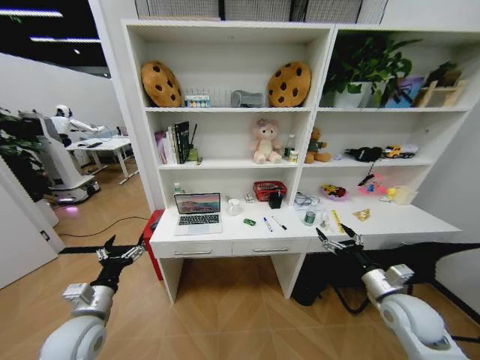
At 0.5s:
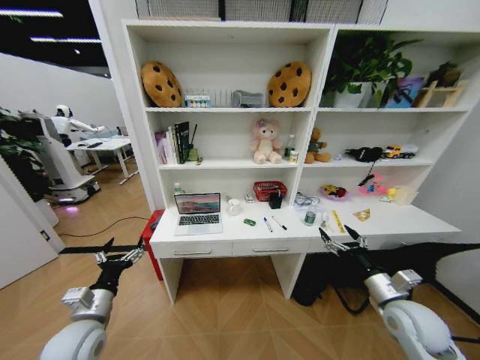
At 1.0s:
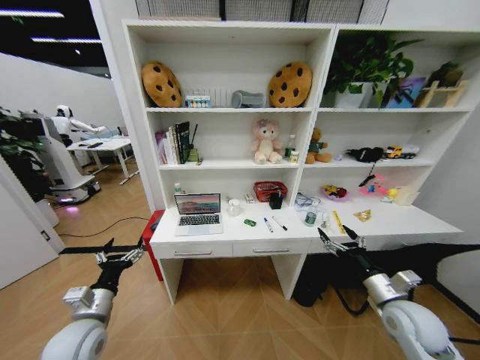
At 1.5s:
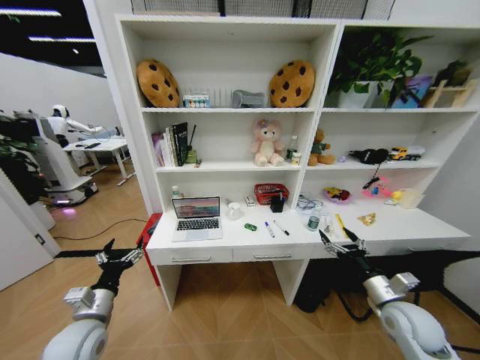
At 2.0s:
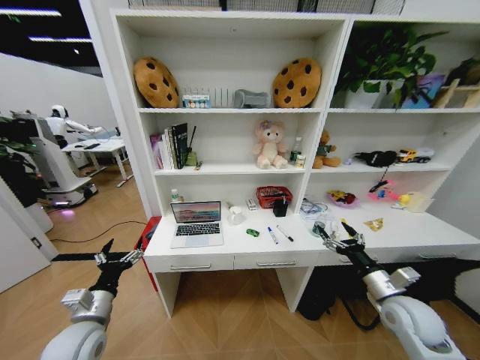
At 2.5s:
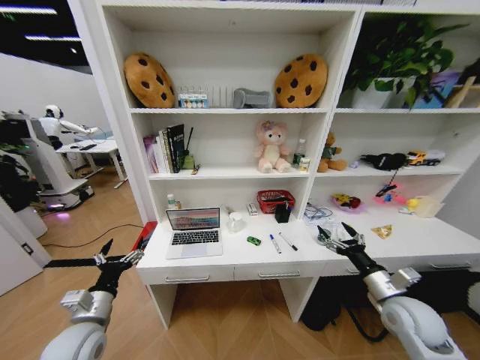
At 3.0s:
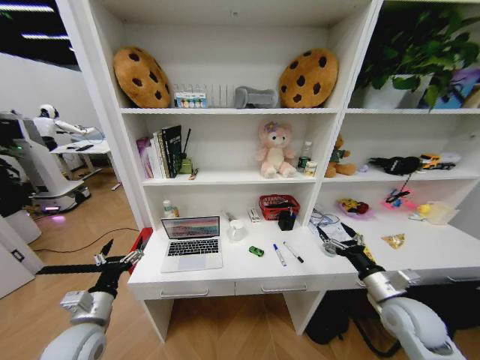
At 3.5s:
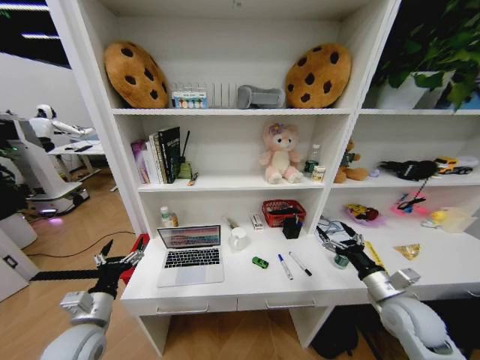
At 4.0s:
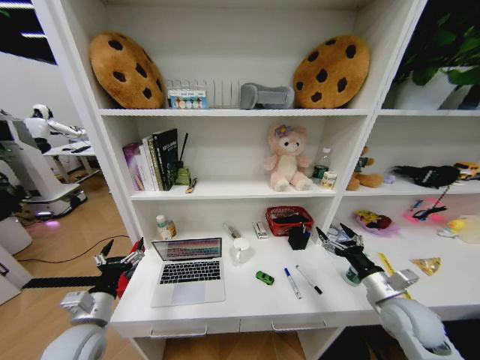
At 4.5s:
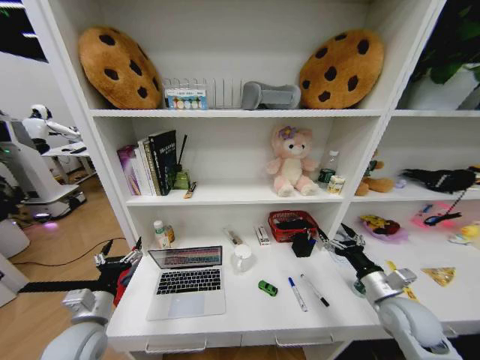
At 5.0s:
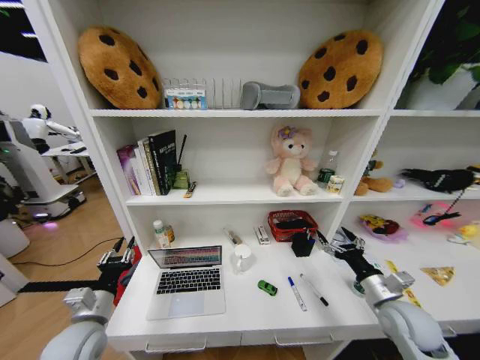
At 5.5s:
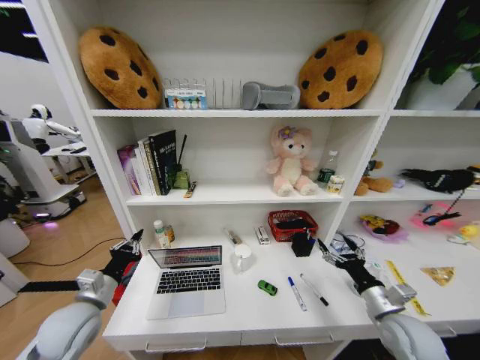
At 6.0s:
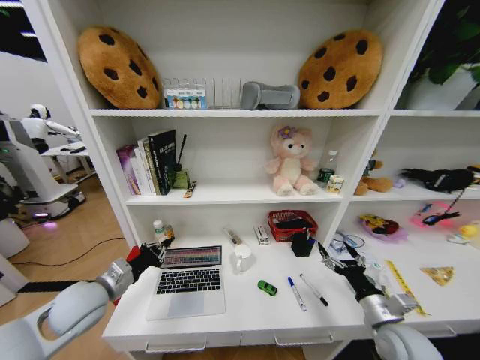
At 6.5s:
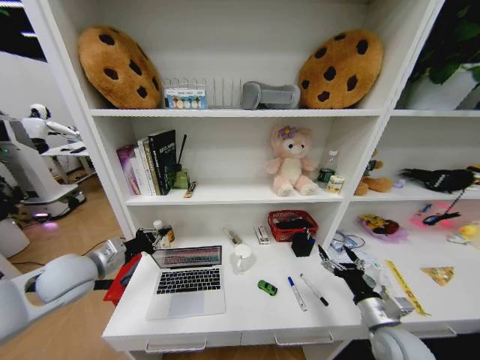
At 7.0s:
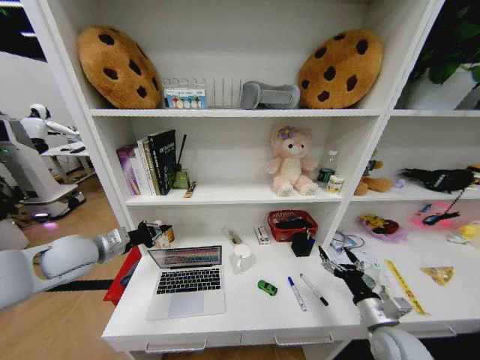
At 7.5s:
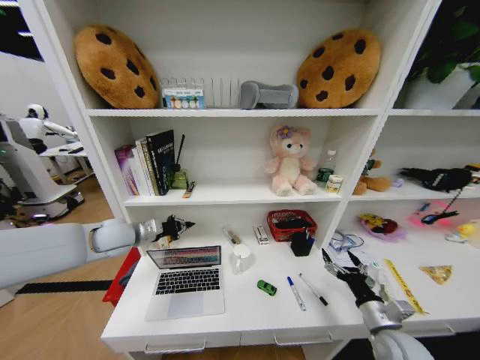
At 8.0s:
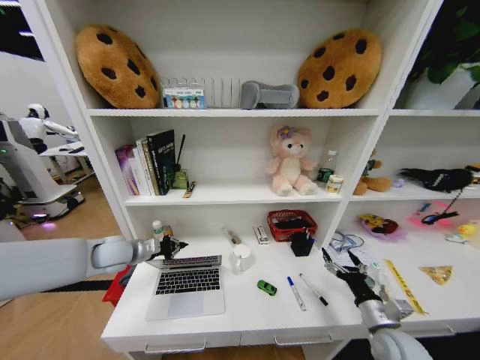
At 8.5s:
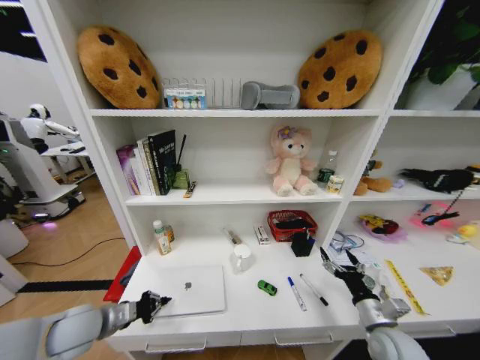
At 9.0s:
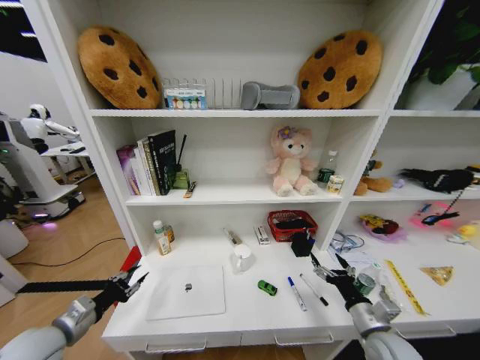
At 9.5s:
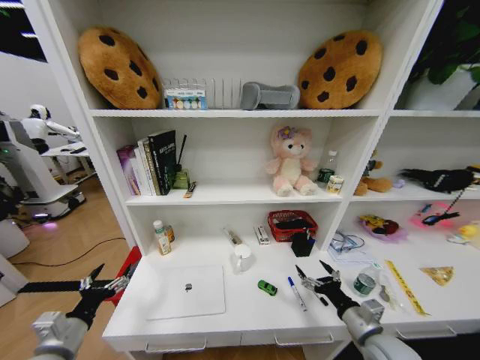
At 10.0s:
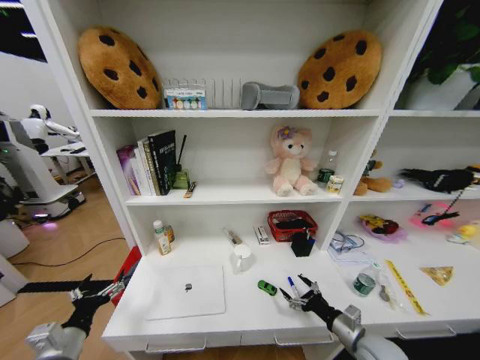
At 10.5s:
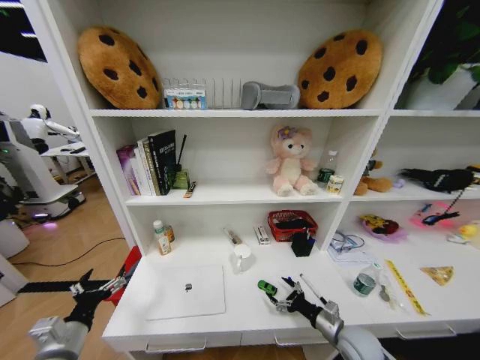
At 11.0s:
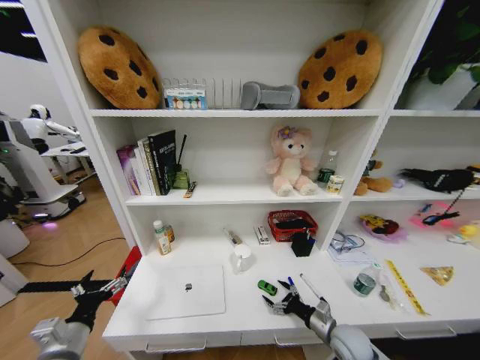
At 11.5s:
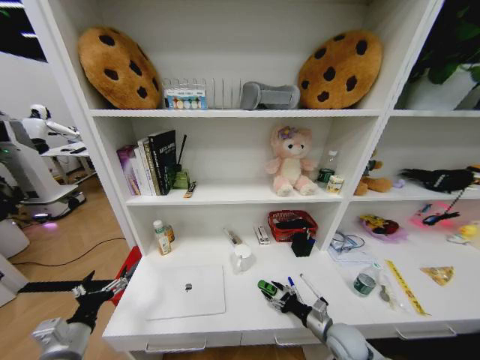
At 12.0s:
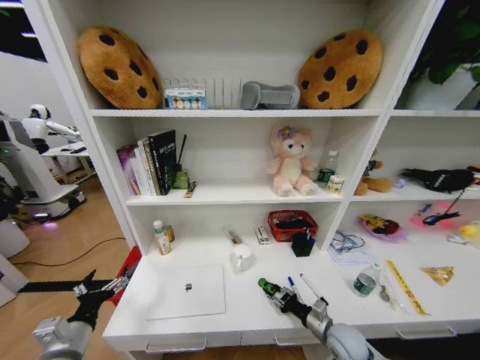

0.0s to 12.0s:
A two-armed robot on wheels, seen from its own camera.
Task of the whole recording: Organize the objects on the table.
4.0s to 6.0s: The right gripper ends up approximately 5 cm from where it was. Meanwhile the left gripper travels forward and upward by approximately 10 cm, and closes up.
6.0s to 8.0s: The left gripper moves forward, approximately 10 cm.
8.0s to 10.0s: The left gripper moves backward, roughly 25 cm, and opens.
10.0s to 12.0s: The right gripper goes approximately 5 cm downward, and closes up.

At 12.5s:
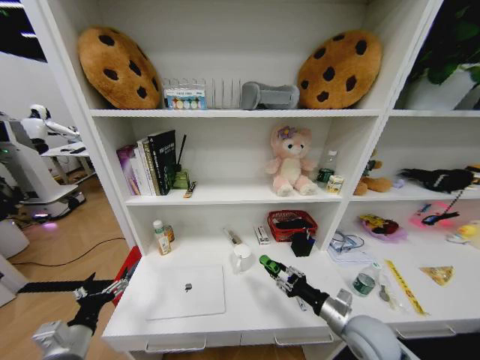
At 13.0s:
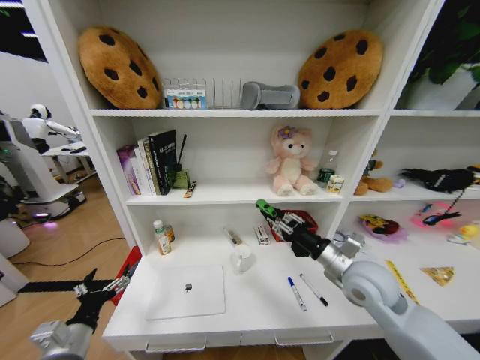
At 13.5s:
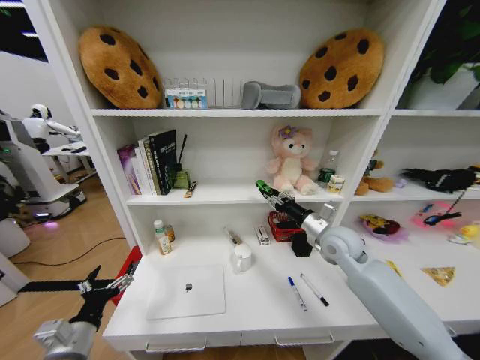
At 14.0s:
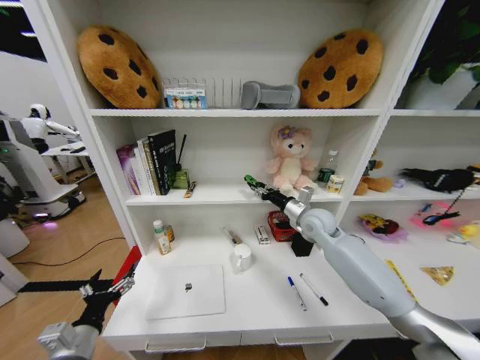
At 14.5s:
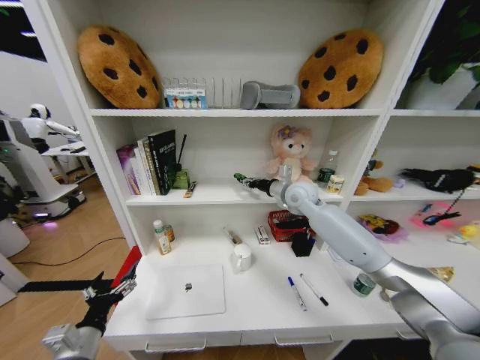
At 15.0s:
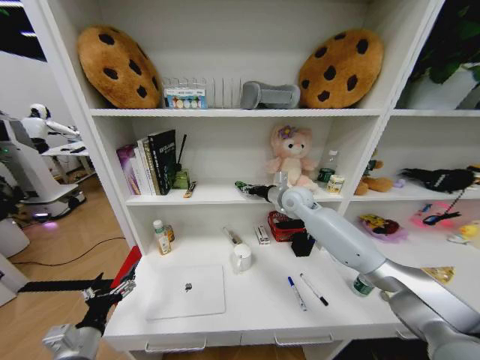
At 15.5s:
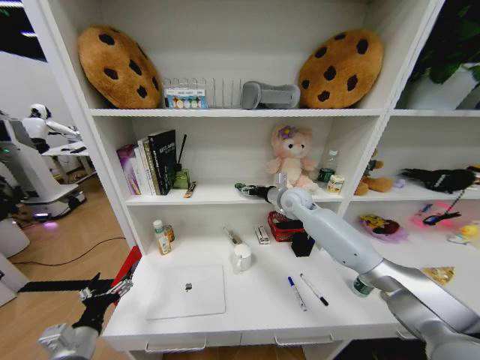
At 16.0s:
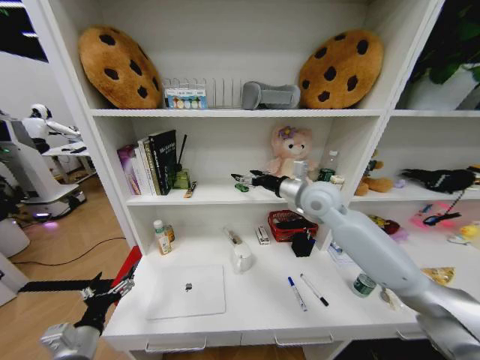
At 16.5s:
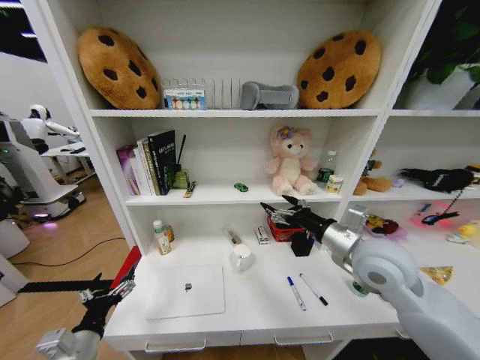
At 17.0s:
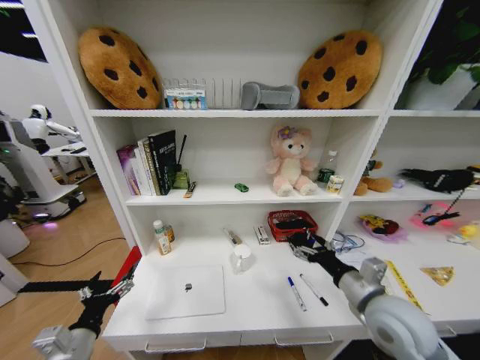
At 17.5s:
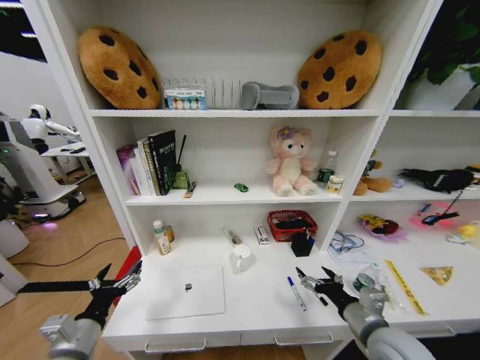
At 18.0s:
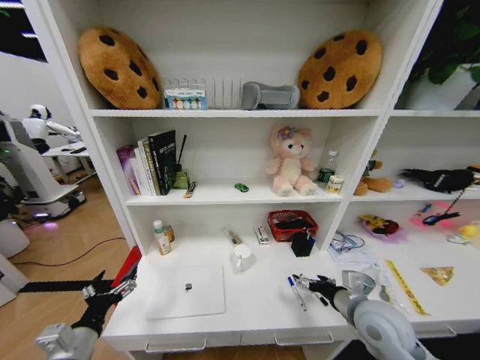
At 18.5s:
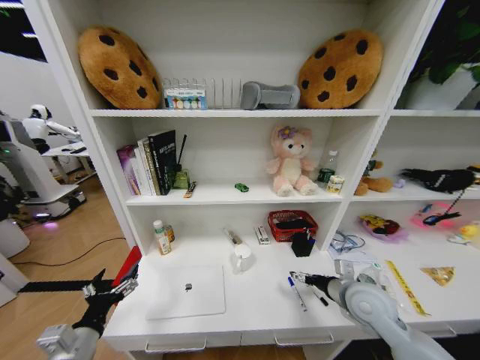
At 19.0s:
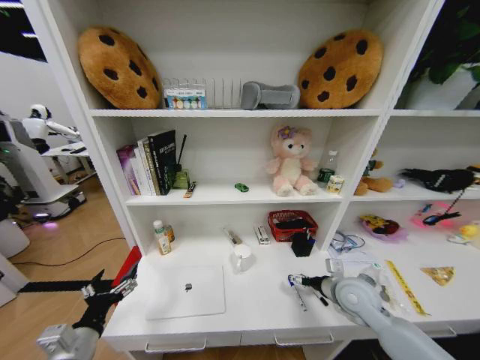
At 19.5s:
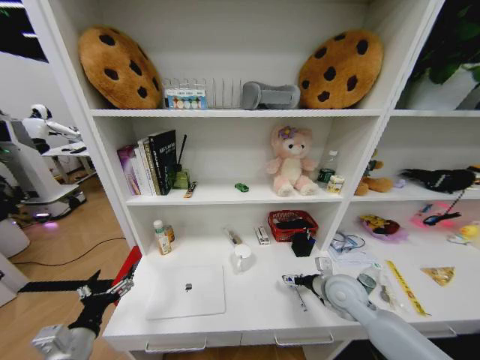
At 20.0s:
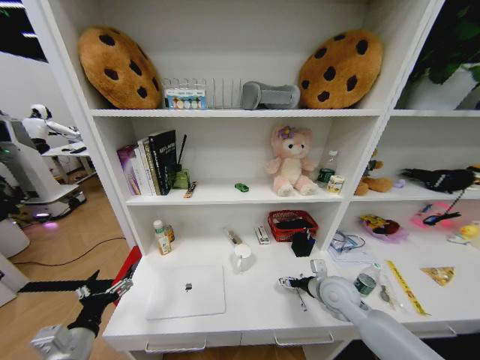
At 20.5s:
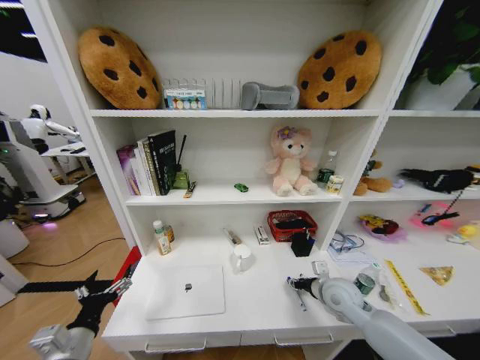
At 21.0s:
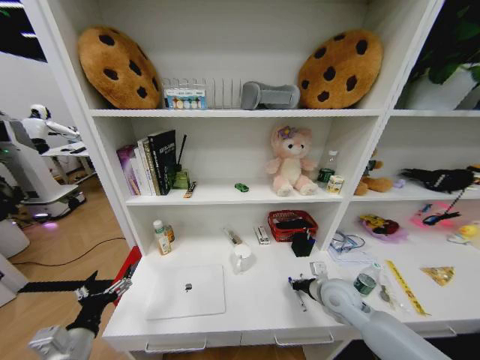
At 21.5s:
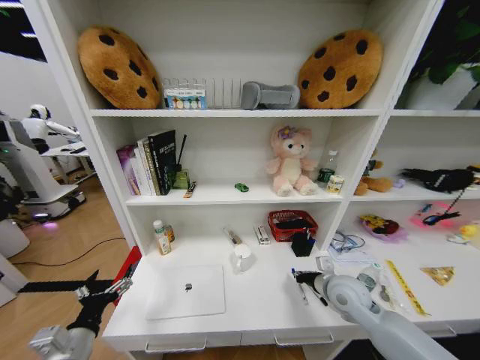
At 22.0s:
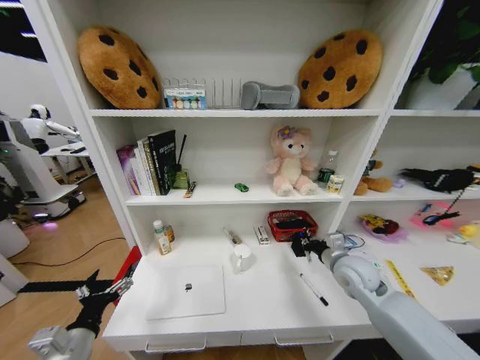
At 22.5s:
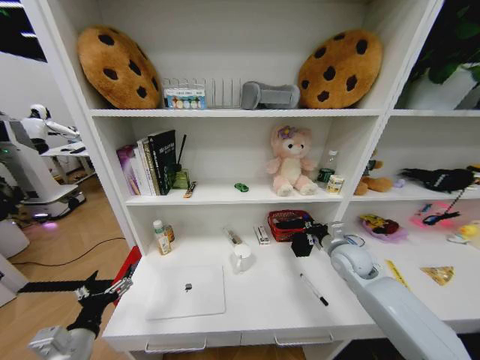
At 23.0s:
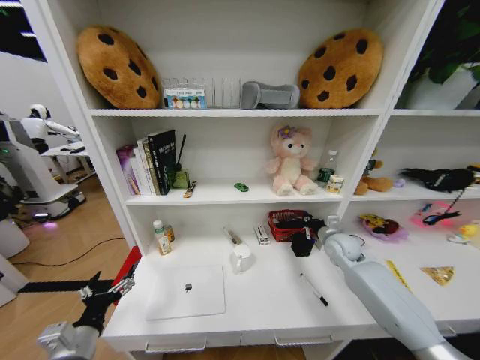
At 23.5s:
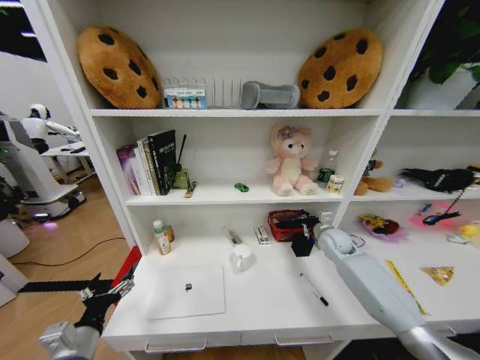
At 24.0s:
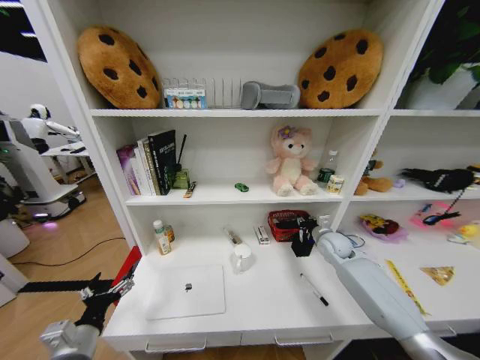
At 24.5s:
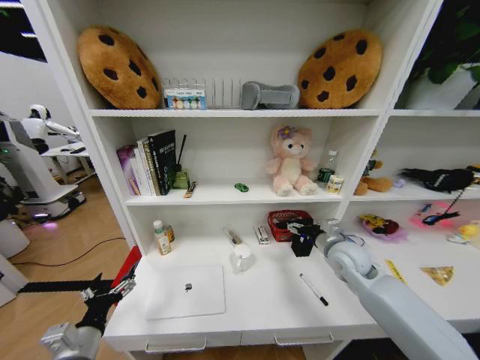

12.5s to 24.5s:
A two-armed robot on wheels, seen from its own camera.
Task of the whole recording: Organize the objects on the table.
12.5s to 14.5s: The right gripper moves forward and upward, some 35 cm.
14.5s to 16.5s: The right gripper moves backward, roughly 25 cm, and opens up.
16.5s to 18.5s: The right gripper moves downward, some 15 cm.
18.5s to 20.5s: The right gripper travels downward by approximately 5 cm, and closes.
20.5s to 22.5s: The right gripper is displaced forward and upward by roughly 10 cm, and closes up.
22.5s to 24.5s: The right gripper goes forward and returns, roughly 10 cm each way, and opens.

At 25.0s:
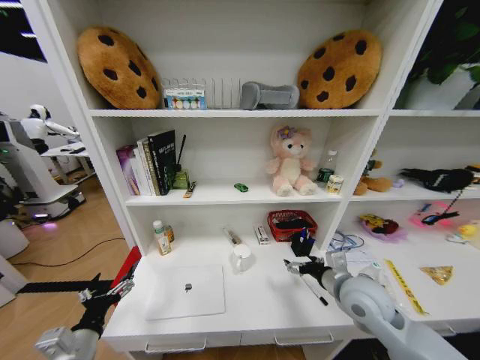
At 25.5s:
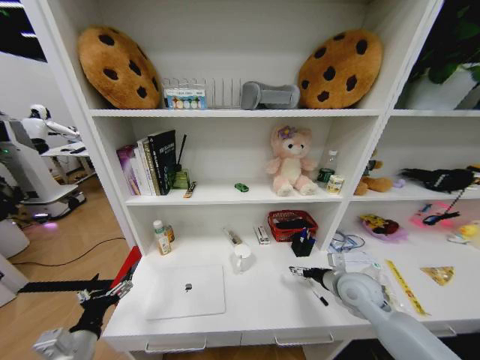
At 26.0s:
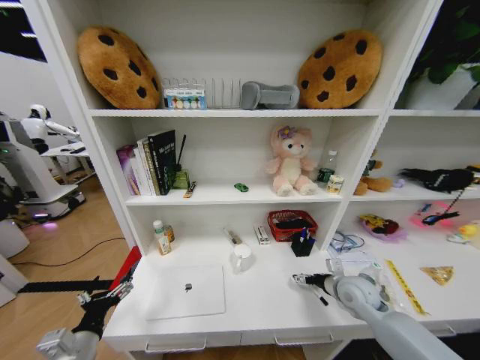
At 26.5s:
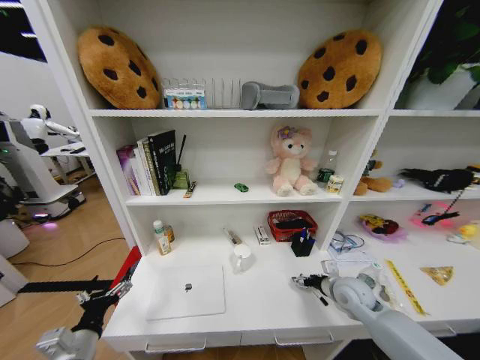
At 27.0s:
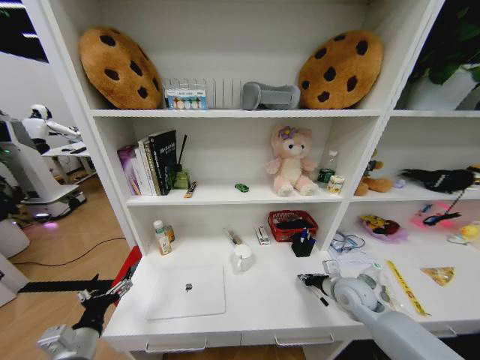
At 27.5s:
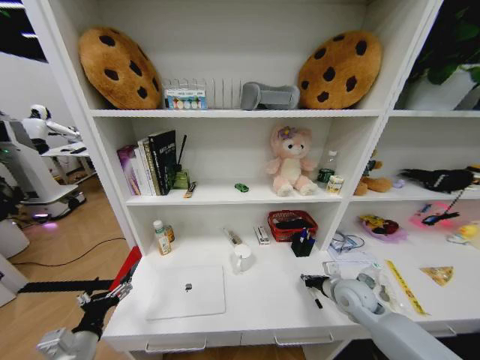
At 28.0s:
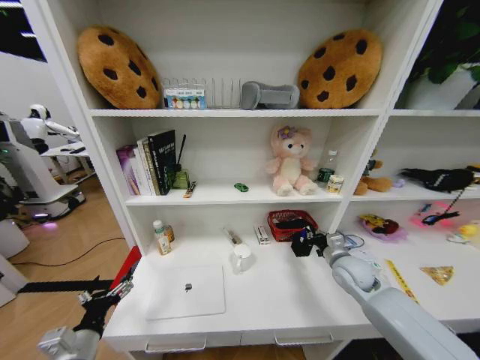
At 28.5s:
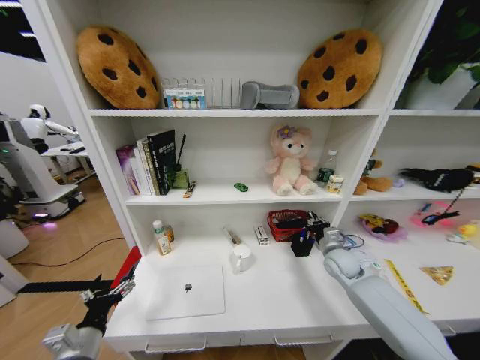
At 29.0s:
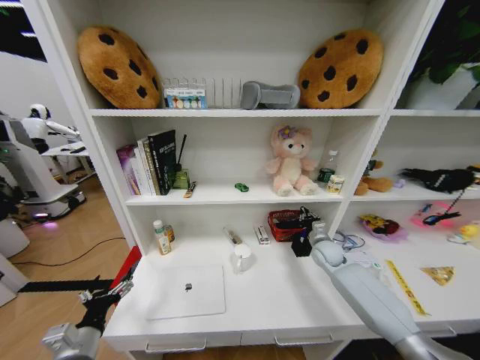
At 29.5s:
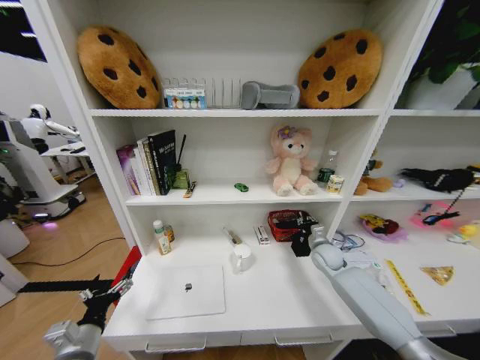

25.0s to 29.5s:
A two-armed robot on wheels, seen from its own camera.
Task of the whole recording: Organize the objects on the table.
25.0s to 27.0s: The right gripper moves downward and to the right, approximately 10 cm, and closes.
27.0s to 29.5s: The right gripper heads forward, covering some 15 cm.
